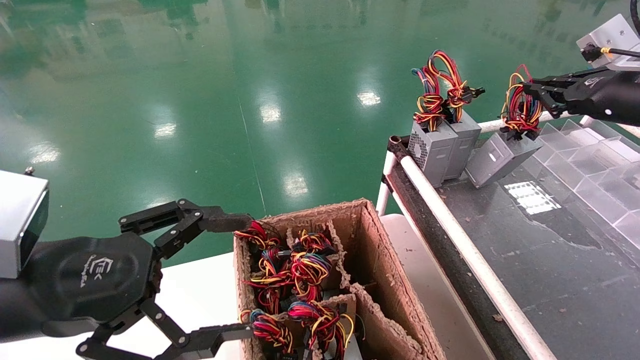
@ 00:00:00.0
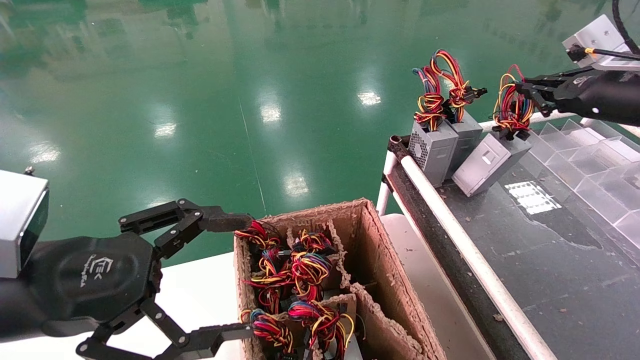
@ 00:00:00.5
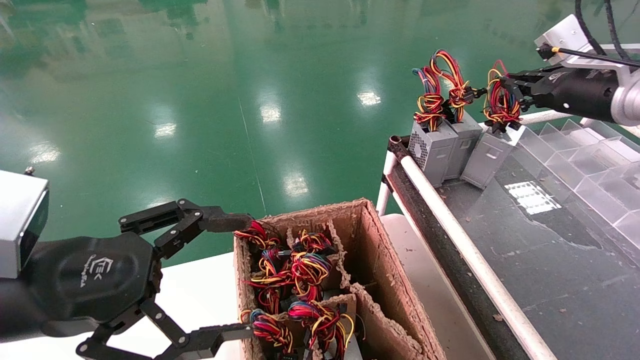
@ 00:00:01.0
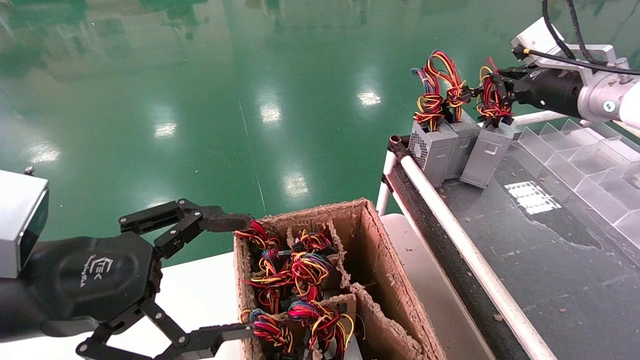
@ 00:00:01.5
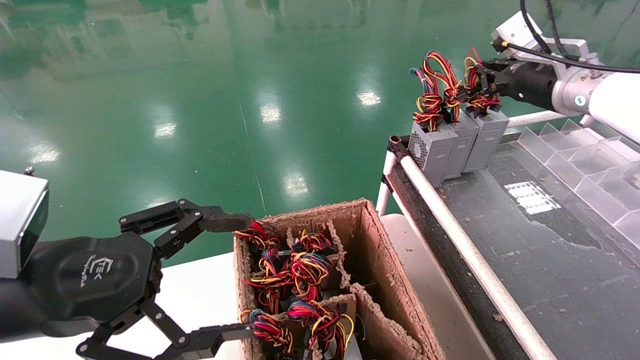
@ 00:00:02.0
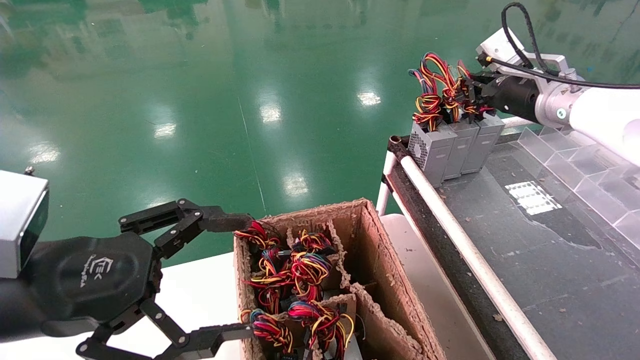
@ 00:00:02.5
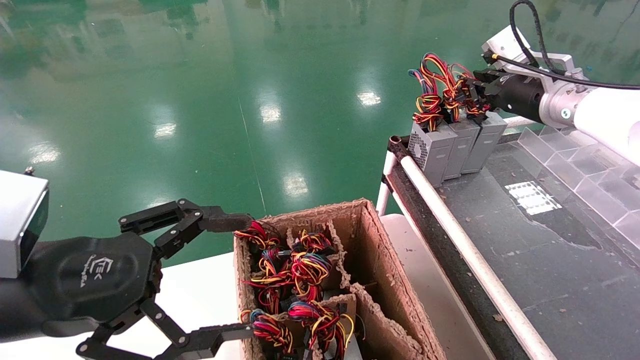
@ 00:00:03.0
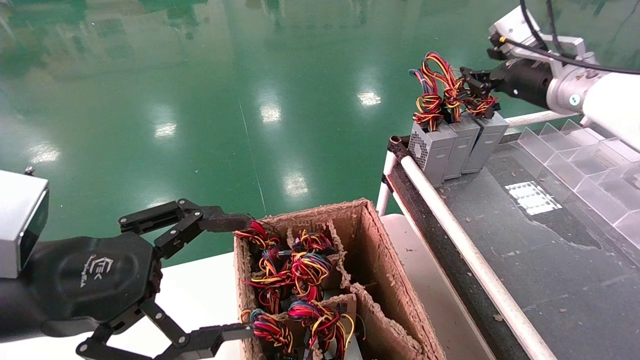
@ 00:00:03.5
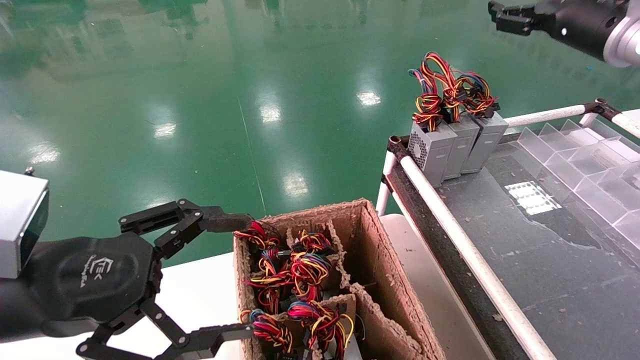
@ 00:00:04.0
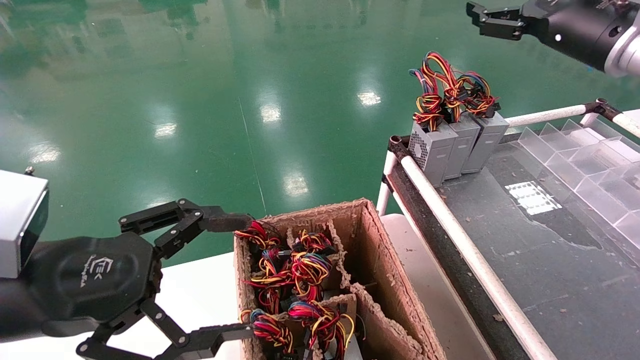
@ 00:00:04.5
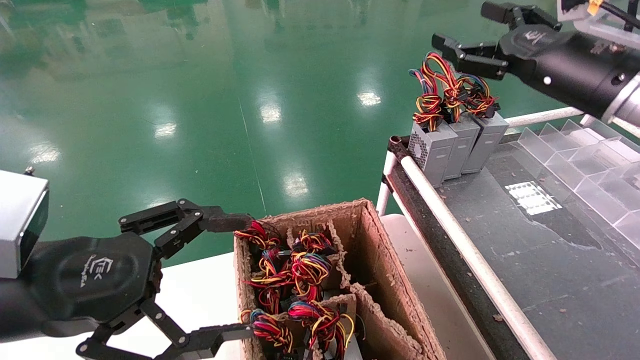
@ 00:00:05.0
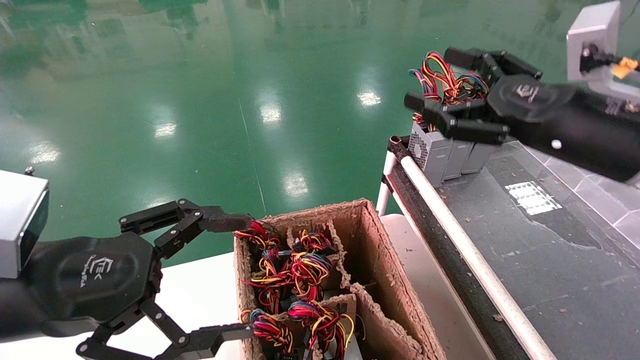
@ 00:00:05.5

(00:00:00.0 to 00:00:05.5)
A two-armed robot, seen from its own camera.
Step, 00:00:00.0 - 00:00:03.0: Place the power supply on the operating table.
00:00:00.0 - 00:00:02.0: The right gripper shifts roughly 10 cm to the left and forward.
00:00:02.0 - 00:00:03.5: The grippers stay close to where they were, moving slightly.
00:00:03.5 - 00:00:05.5: The right gripper heads backward, covering some 15 cm, and opens its fingers.

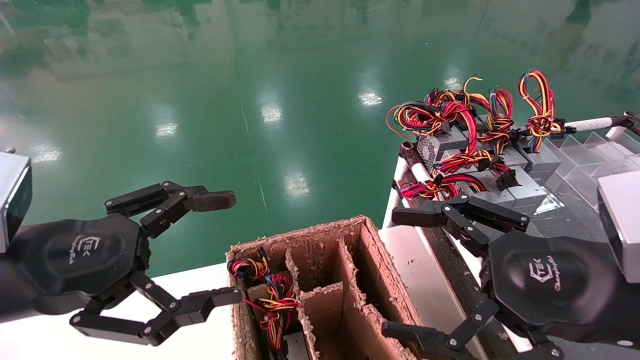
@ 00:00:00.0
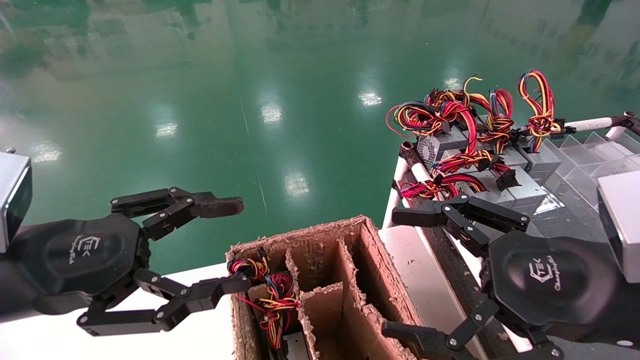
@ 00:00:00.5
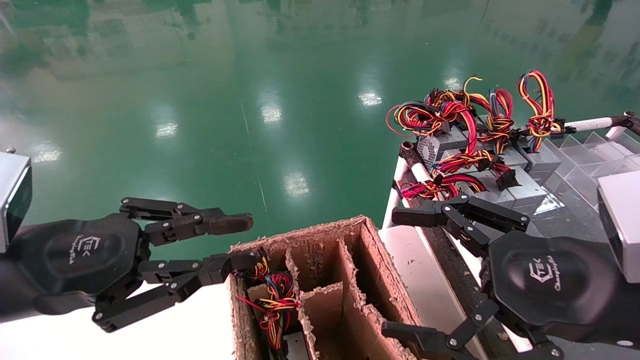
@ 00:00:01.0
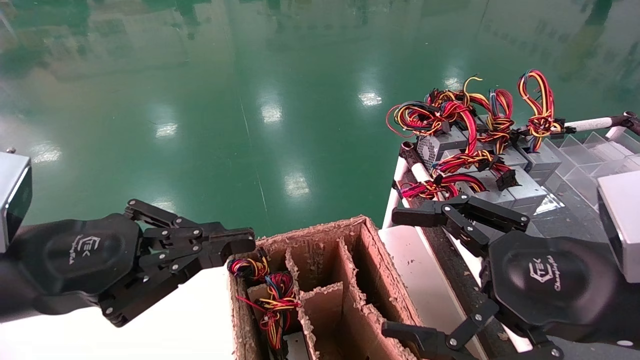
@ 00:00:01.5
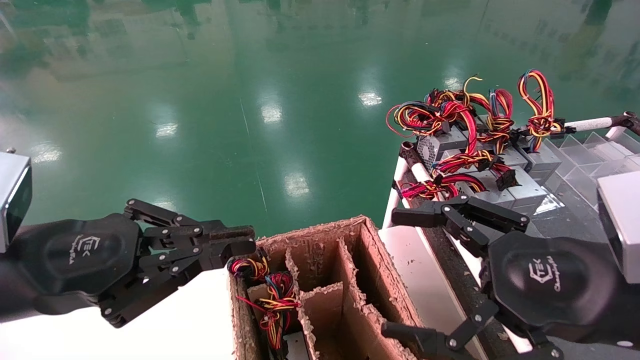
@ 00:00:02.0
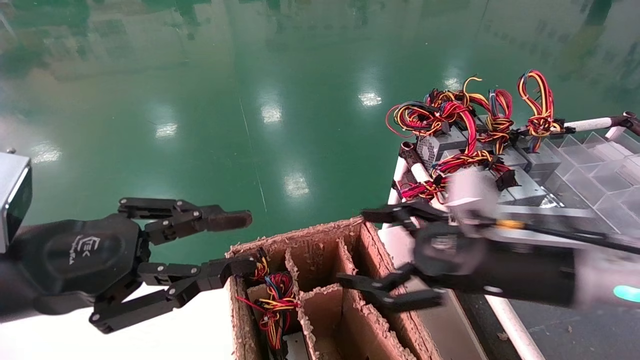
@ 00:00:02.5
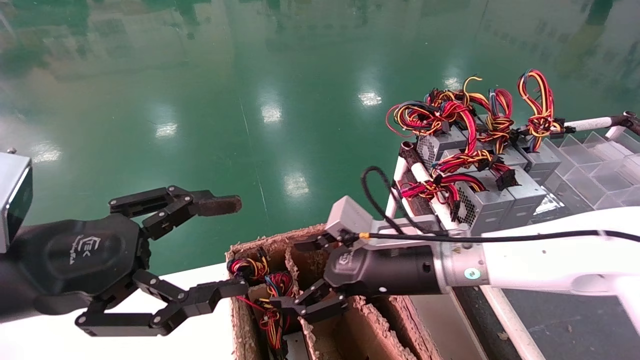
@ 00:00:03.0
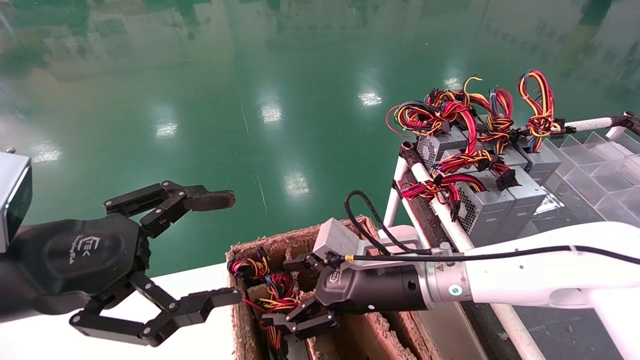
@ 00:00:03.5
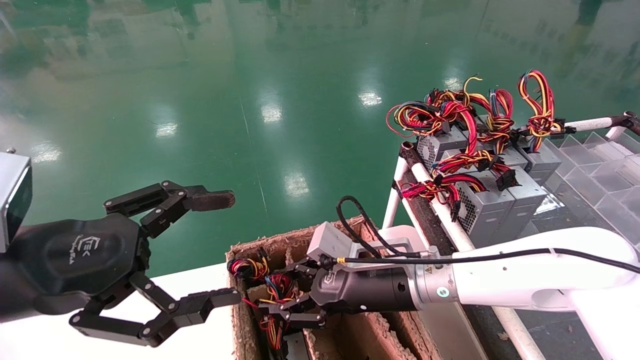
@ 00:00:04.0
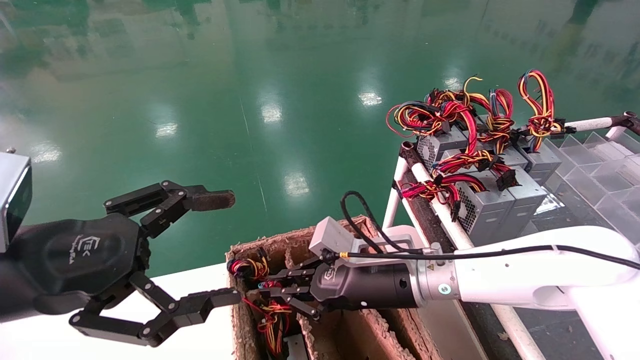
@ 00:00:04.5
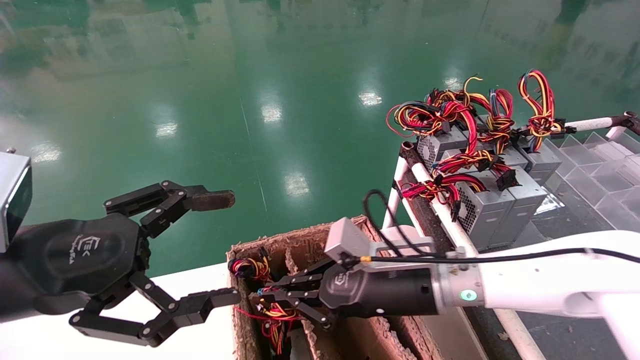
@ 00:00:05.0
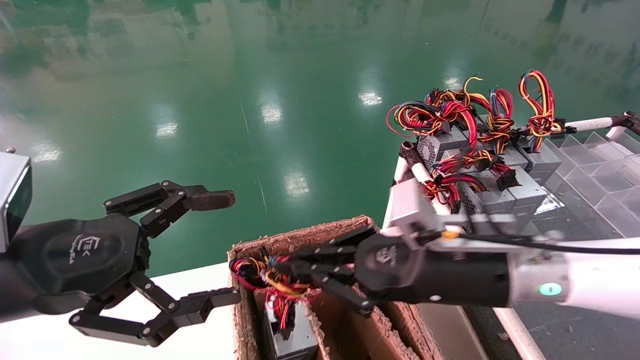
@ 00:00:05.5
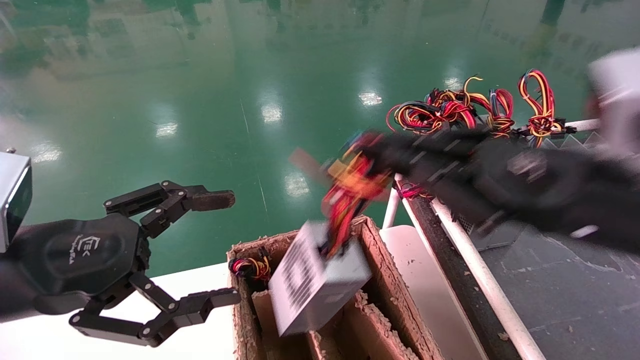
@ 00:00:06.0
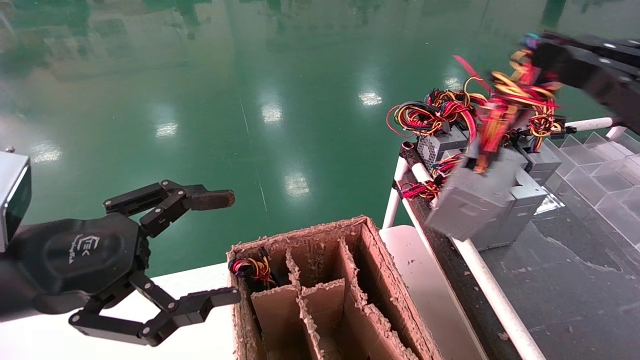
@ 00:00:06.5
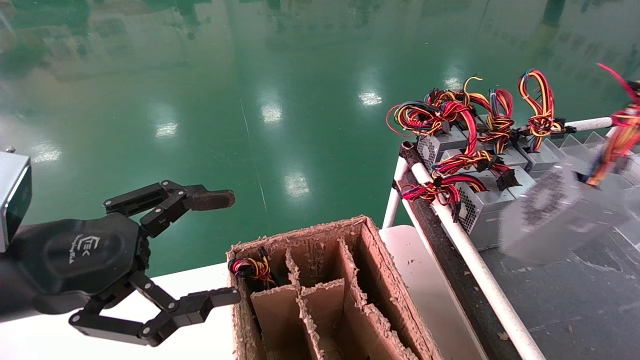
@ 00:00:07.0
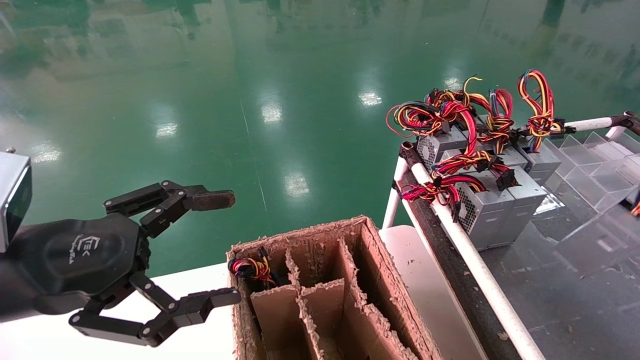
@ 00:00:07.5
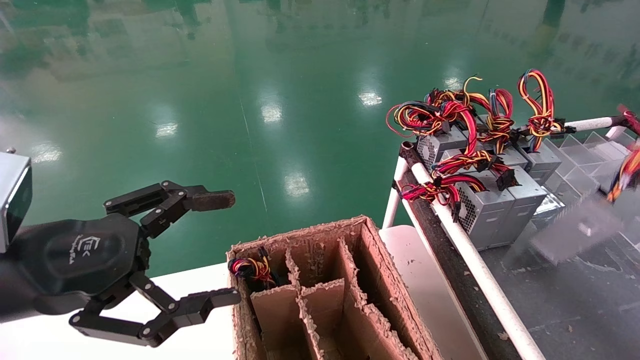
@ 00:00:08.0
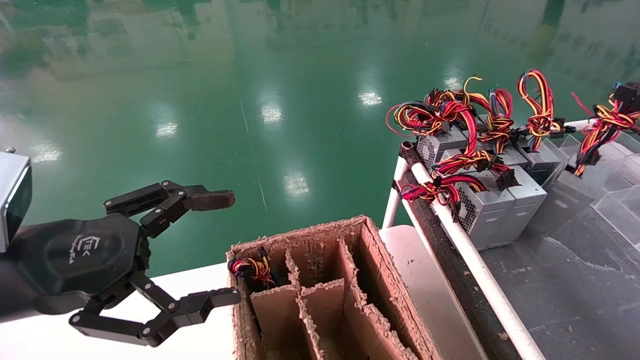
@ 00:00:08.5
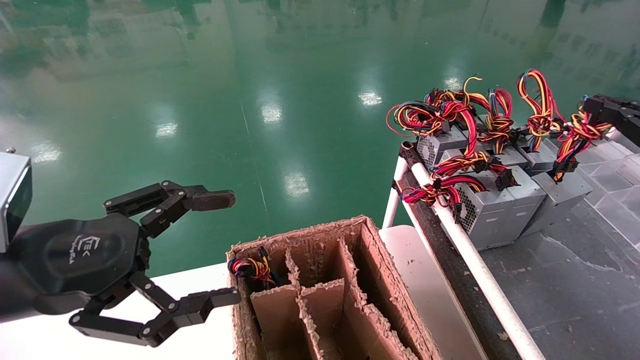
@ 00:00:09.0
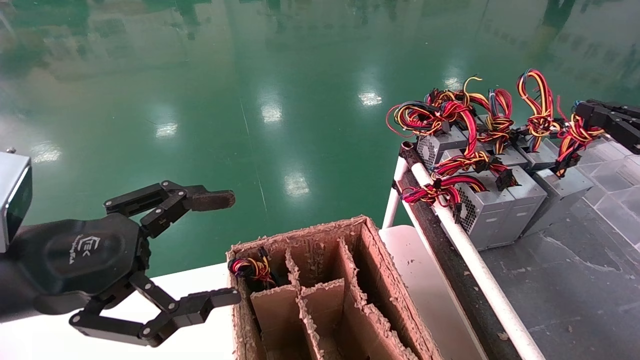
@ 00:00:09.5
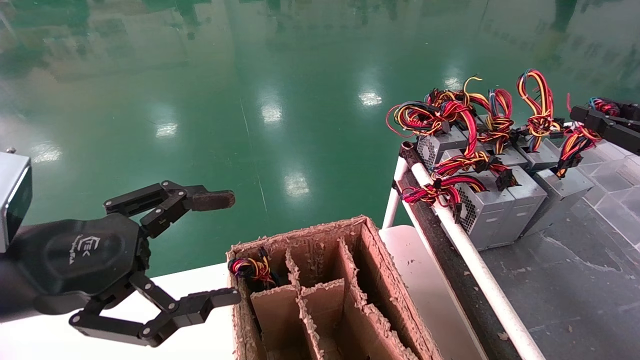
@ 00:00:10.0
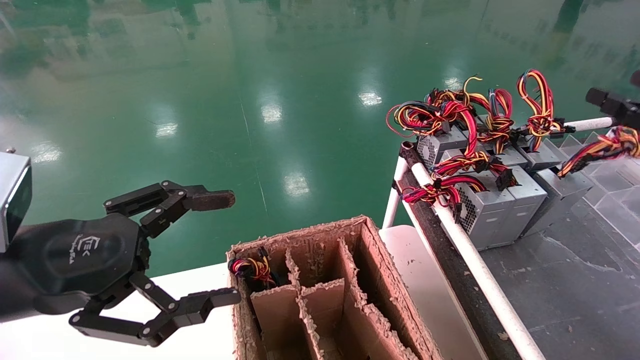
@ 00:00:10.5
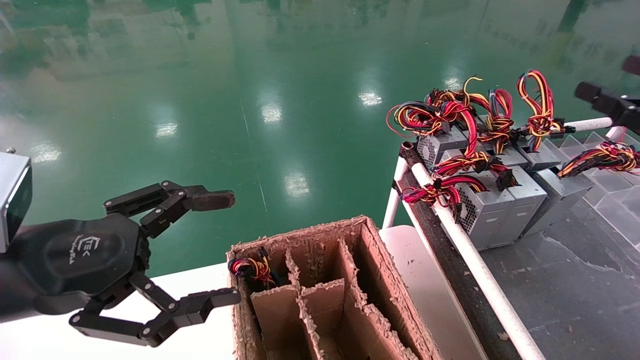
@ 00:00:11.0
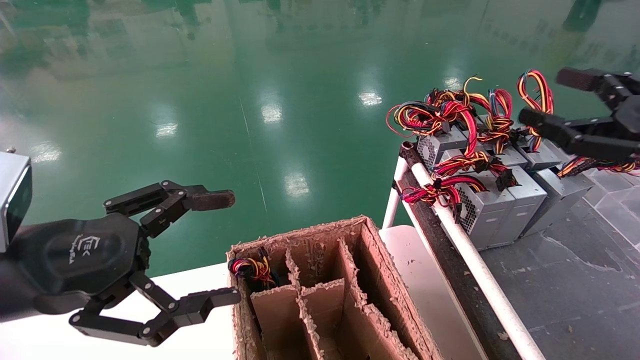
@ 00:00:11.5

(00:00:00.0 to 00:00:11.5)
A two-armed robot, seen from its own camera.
Step, 00:00:01.5 - 00:00:04.5: Grab and lift the power supply from the large box.
Step, 00:00:05.0 - 00:00:09.5: Place the power supply on the operating table.
00:00:00.0 - 00:00:02.0: The left gripper closes its fingers.
00:00:02.0 - 00:00:04.0: The left gripper opens, while the right gripper moves forward, to the left and downward, some 25 cm, and closes its fingers.
00:00:04.0 - 00:00:06.0: The right gripper shifts roughly 25 cm to the right, upward and backward, and closes its fingers.
00:00:06.0 - 00:00:07.5: The right gripper moves to the right, some 25 cm.
00:00:07.5 - 00:00:09.5: The right gripper moves forward, about 15 cm.
00:00:09.5 - 00:00:11.5: The right gripper shifts some 10 cm to the left, and opens.
